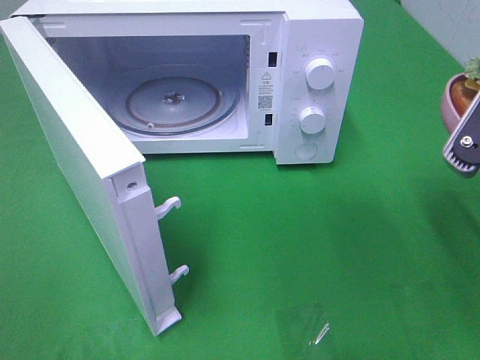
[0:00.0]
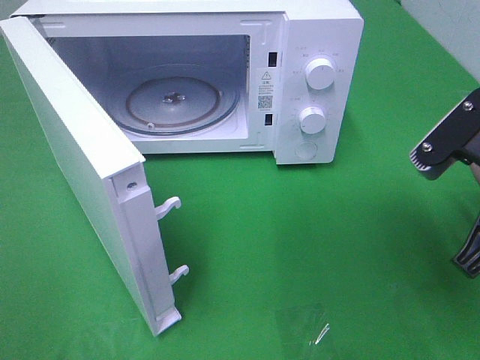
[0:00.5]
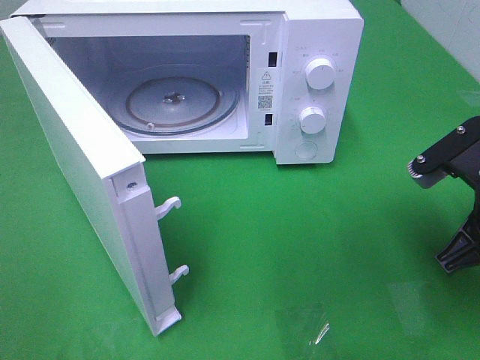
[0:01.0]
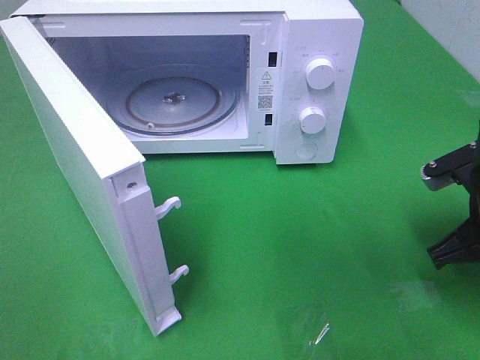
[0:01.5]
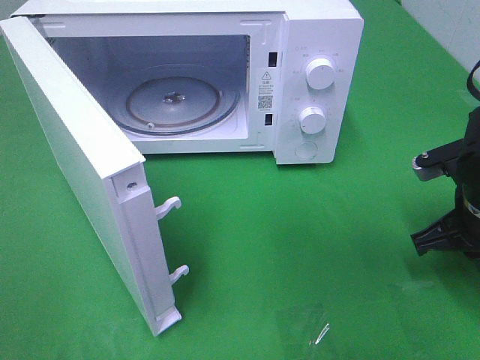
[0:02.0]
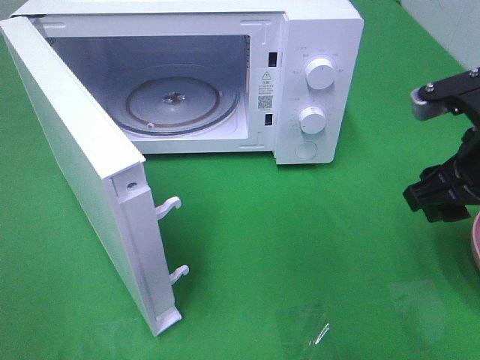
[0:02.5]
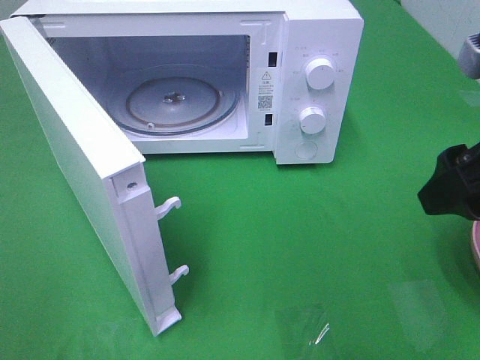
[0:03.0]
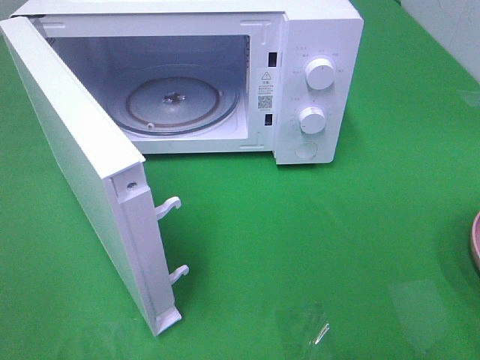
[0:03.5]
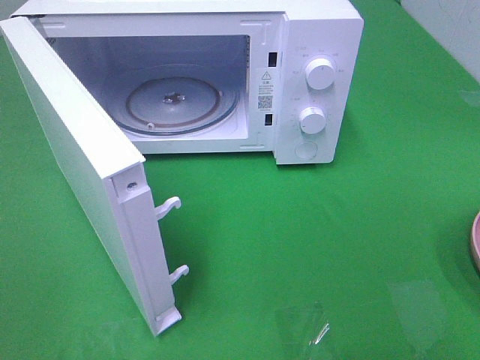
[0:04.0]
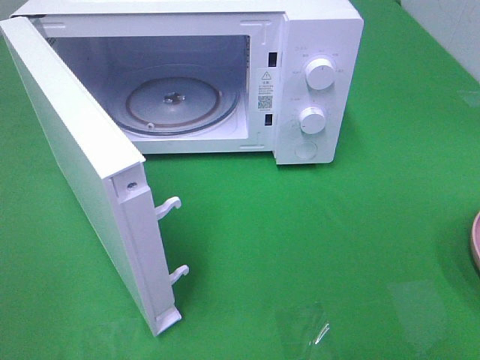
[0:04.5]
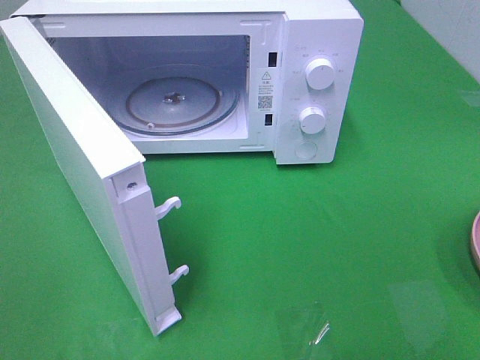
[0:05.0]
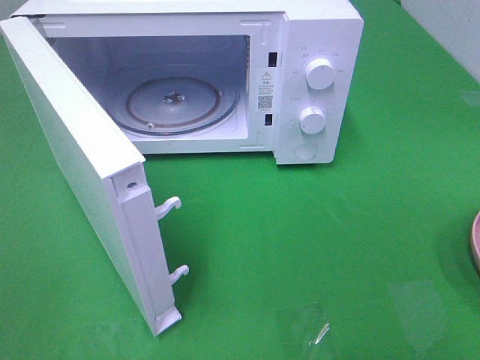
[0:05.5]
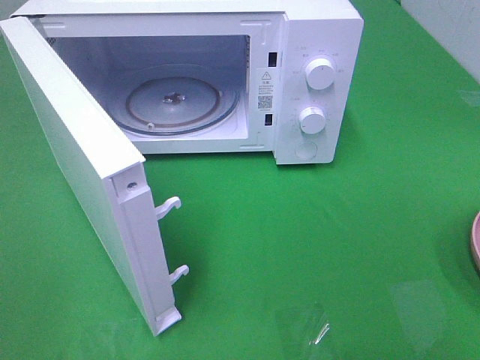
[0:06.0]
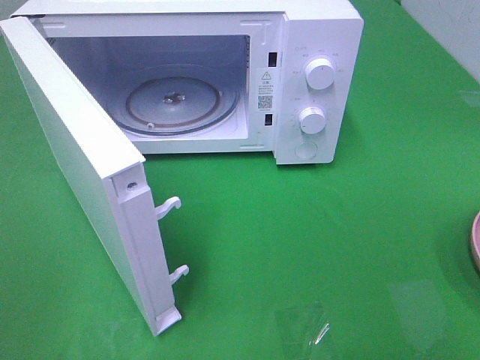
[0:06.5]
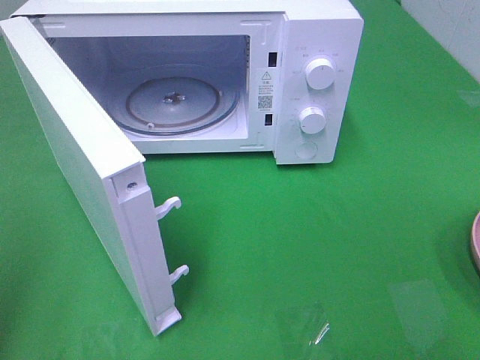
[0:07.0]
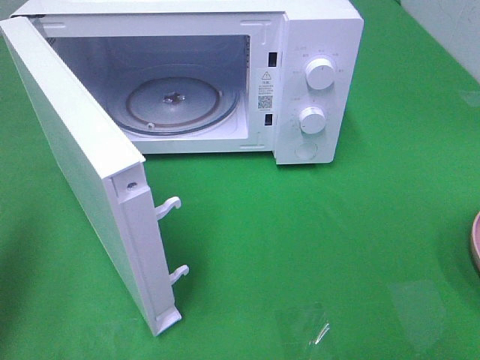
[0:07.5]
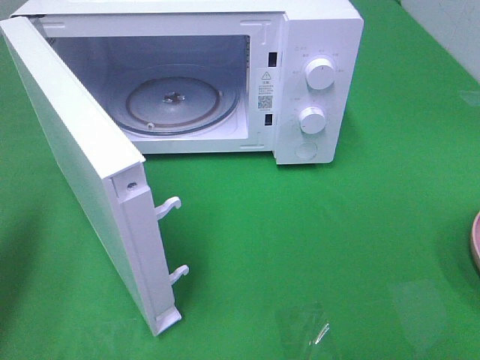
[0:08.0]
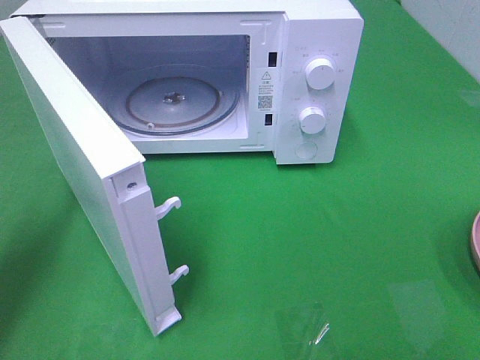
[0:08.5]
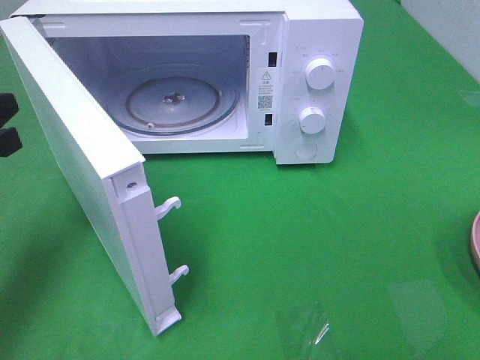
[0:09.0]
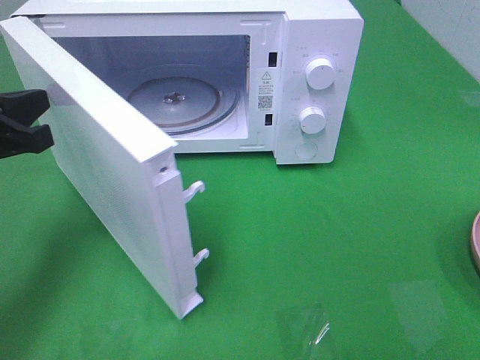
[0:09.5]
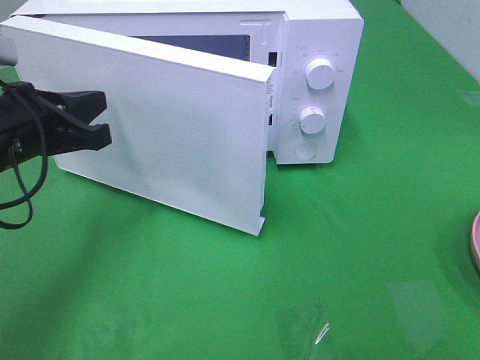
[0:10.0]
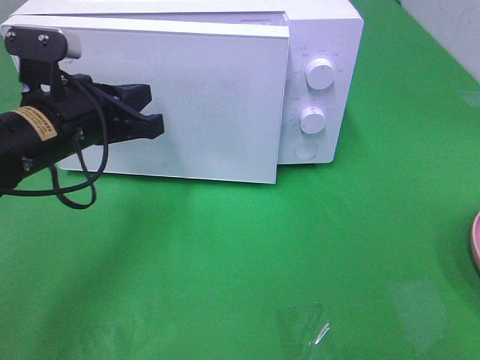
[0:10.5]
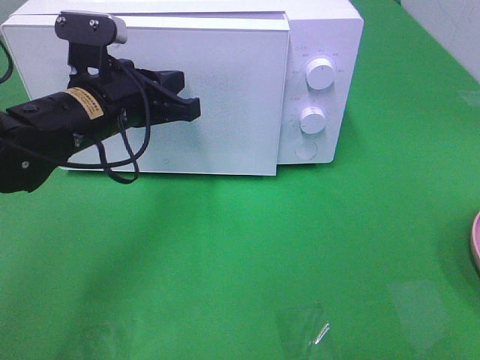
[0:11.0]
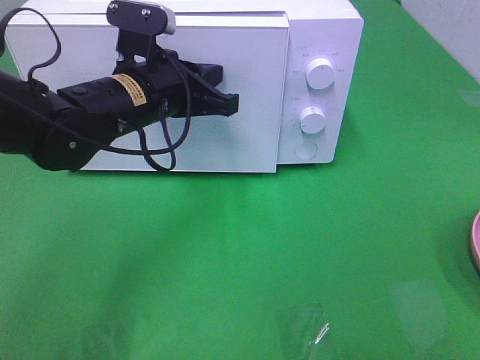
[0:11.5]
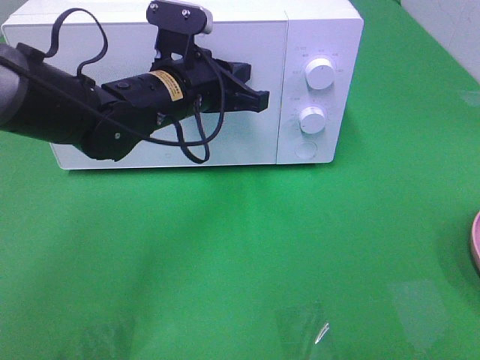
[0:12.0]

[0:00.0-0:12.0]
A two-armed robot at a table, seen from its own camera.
Task of the whole recording: Heat the burger.
Step, 0:00.0 to 0:02.0: Right hand: place the plate on the table.
0:00.0 to 0:02.0: The right gripper goes some 15 cm downward and forward.
0:02.0 to 0:04.0: The right gripper moves backward and upward, some 25 cm, and opens its fingers.
0:06.0 to 0:08.0: The left gripper moves forward, approximately 20 cm, and closes its fingers.
0:08.0 to 0:10.0: The left gripper moves to the right, forward and downward, about 15 cm.
0:10.0 to 0:12.0: The left gripper heads to the right and forward, covering approximately 15 cm.

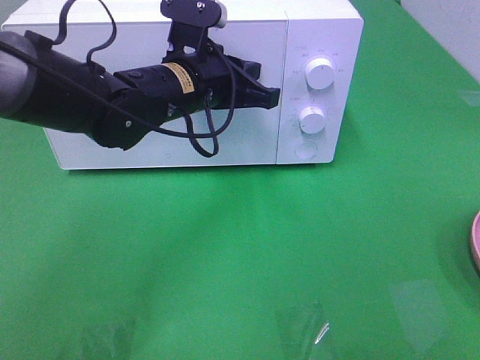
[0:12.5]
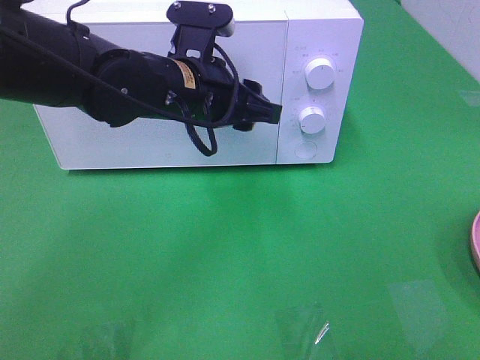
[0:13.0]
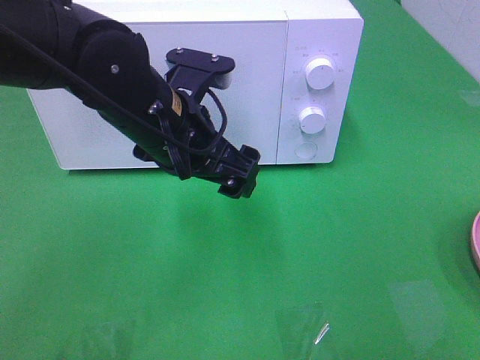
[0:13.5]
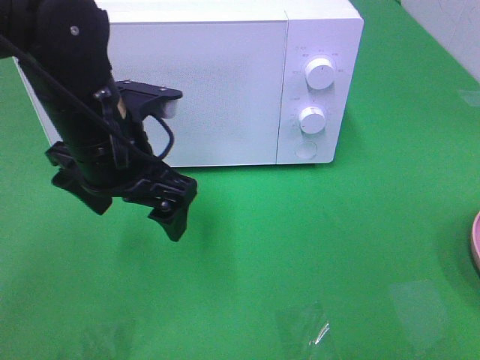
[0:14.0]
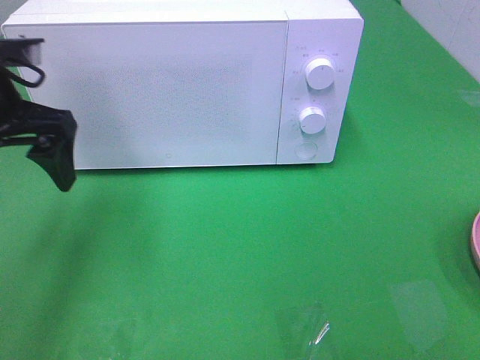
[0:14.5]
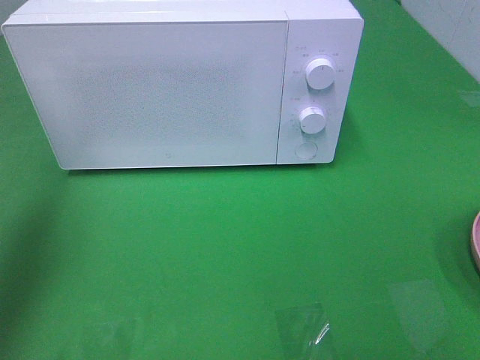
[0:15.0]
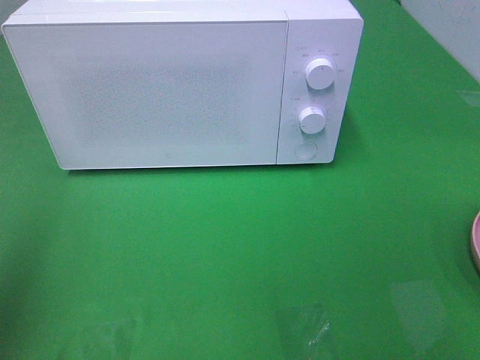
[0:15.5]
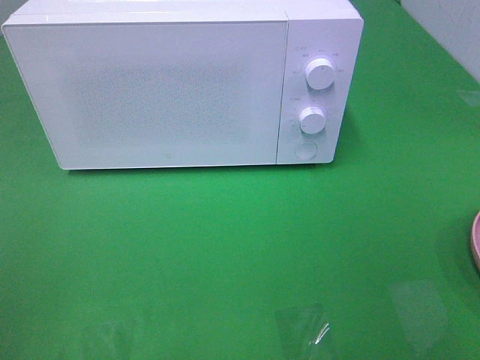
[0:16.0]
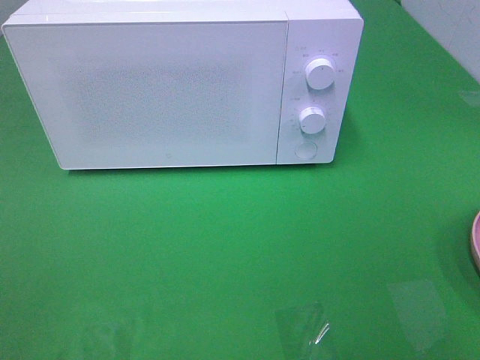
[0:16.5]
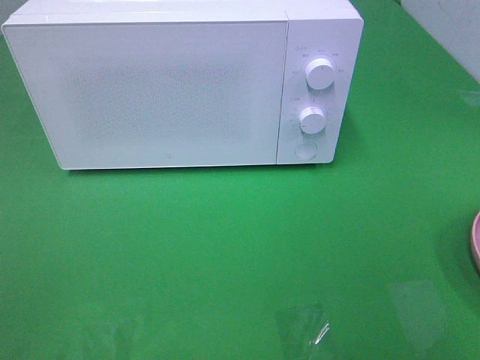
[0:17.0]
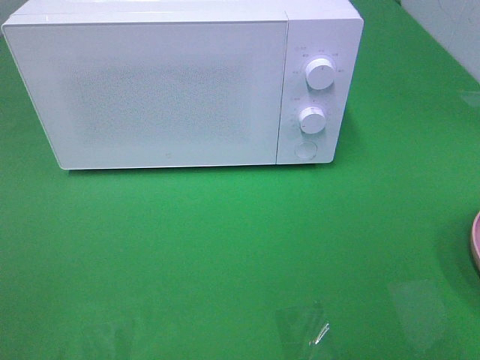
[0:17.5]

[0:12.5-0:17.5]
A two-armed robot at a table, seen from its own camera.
Task of the whole recording: Heat the burger.
0:12.5 to 0:15.0: The left gripper is displaced to the left and upward by roughly 30 cm, and opens.
0:15.0 to 0:17.5: The left gripper goes approximately 25 cm backward.

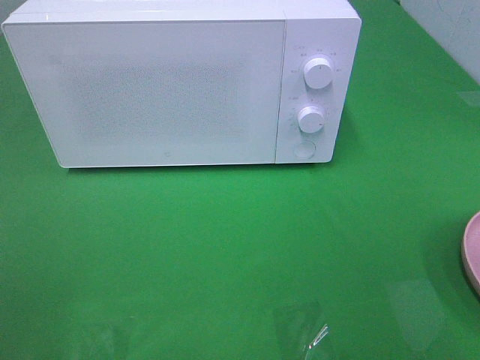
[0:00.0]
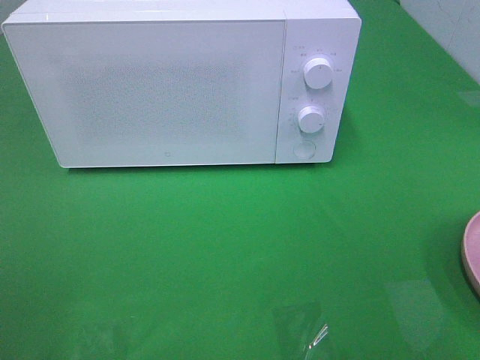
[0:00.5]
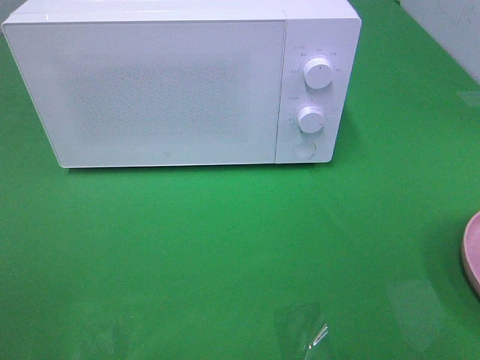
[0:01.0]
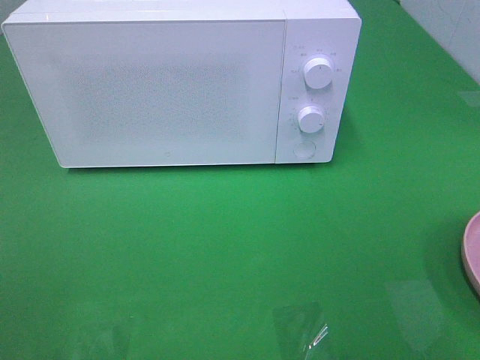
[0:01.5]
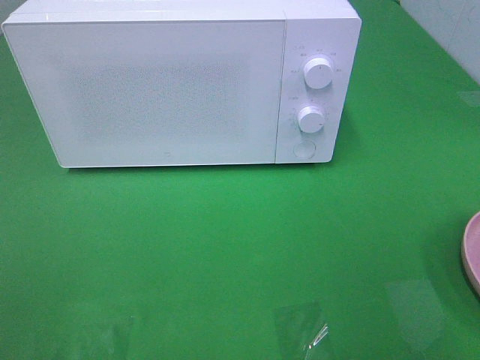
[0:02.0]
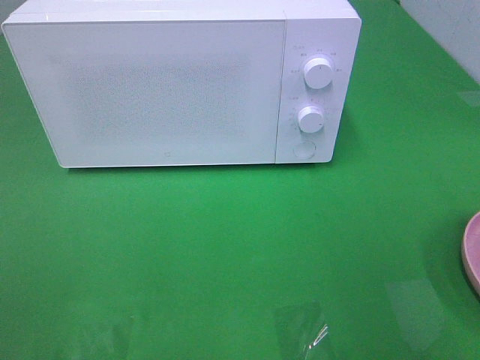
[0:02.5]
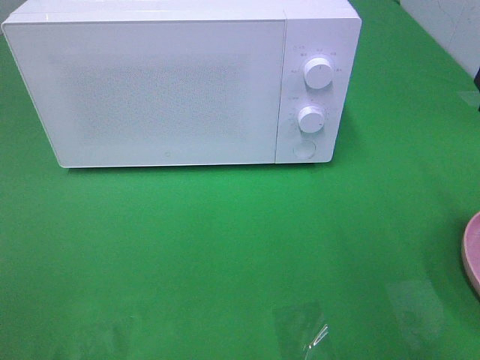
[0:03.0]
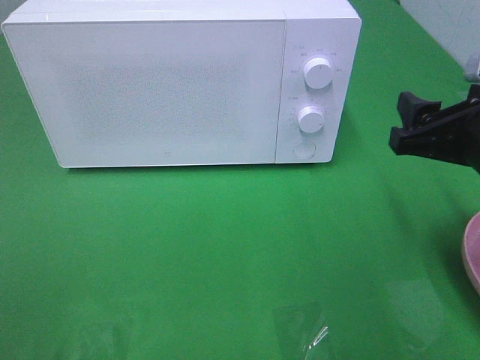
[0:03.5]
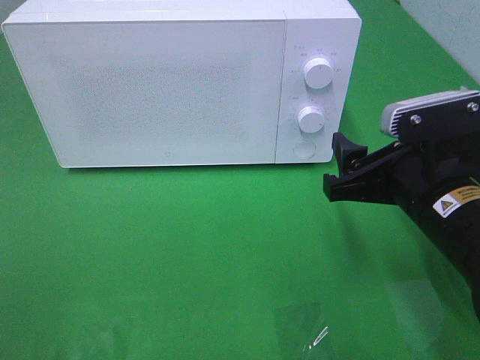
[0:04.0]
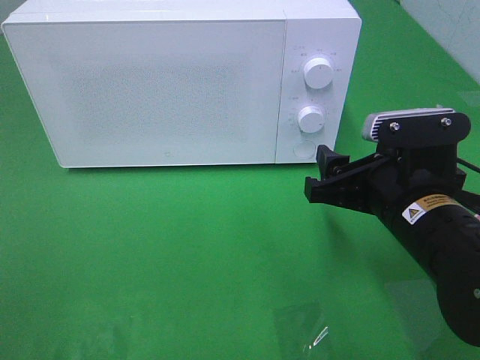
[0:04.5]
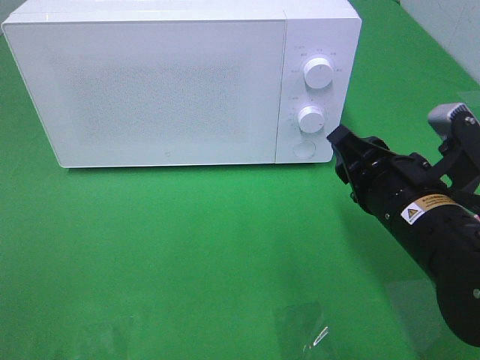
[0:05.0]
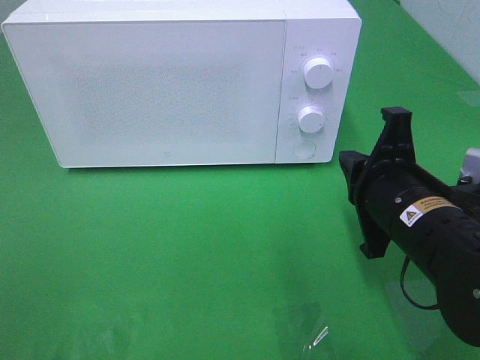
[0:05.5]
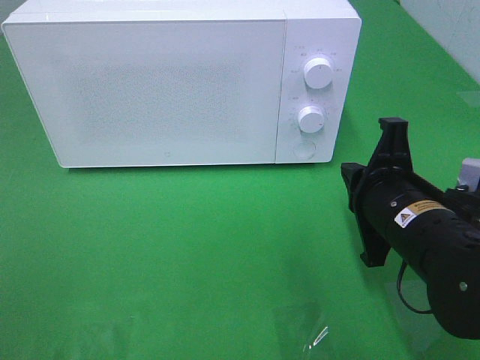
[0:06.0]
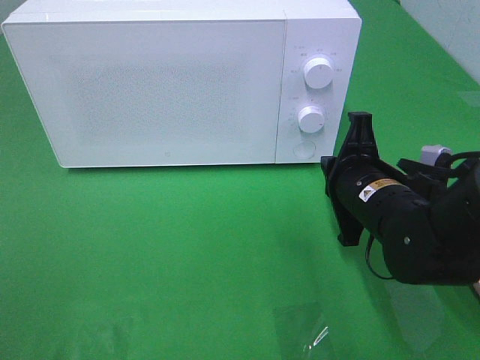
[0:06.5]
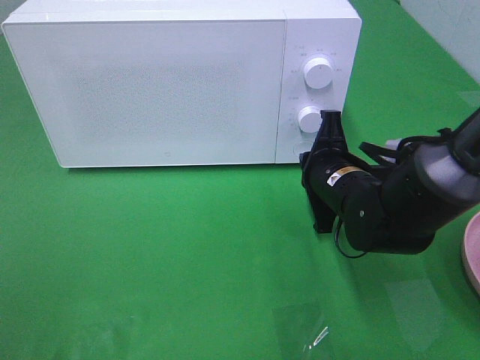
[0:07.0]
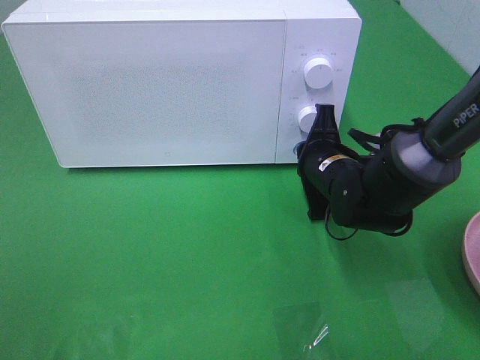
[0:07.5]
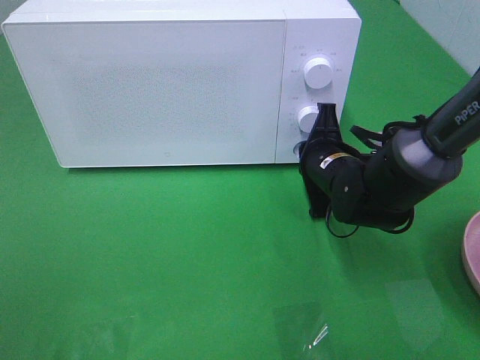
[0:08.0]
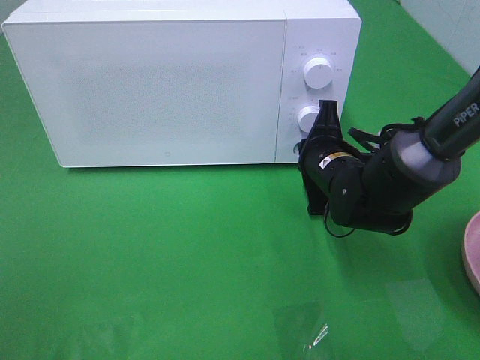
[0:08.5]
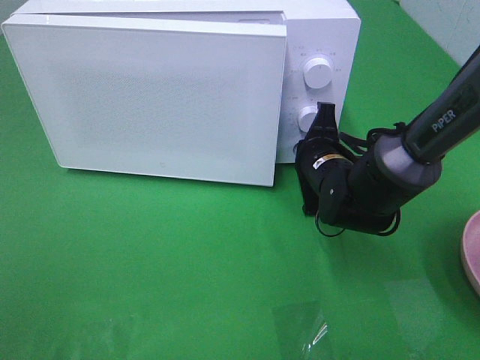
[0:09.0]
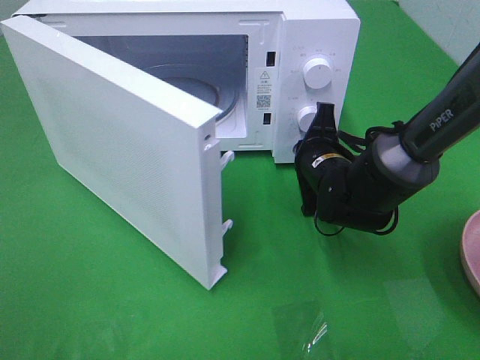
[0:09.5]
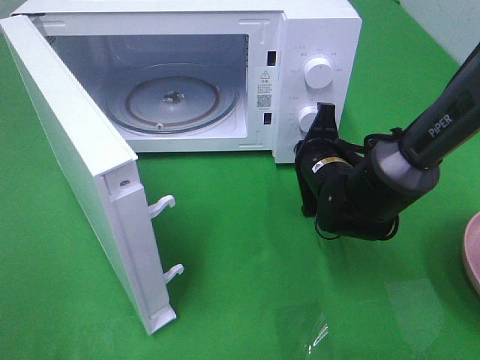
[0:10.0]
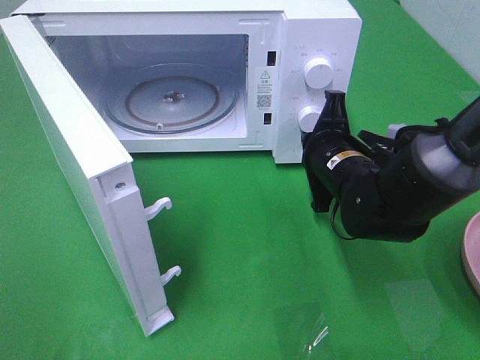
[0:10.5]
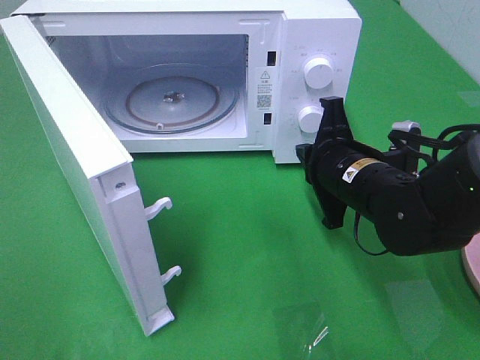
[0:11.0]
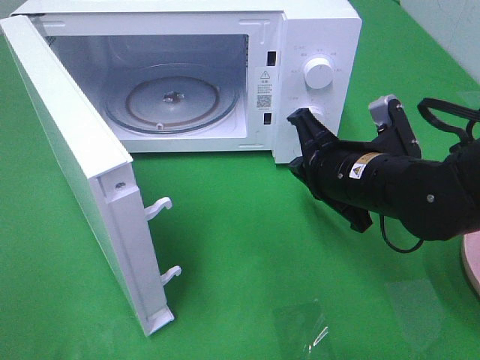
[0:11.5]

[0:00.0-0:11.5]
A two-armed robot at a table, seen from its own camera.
Task of the whole recording: Heat the burger.
Step, 0:00.0 to 0:10.0: Right hand: press the switch.
0:02.0 to 0:04.0: The right gripper moves forward, downward and to the left, some 20 cm.
0:04.0 to 0:06.0: The right gripper closes its fingers.
0:06.0 to 0:07.5: The right gripper travels forward and downward by roughly 15 cm.
0:09.5 to 0:11.5: The right gripper travels backward and upward by some 10 cm.
